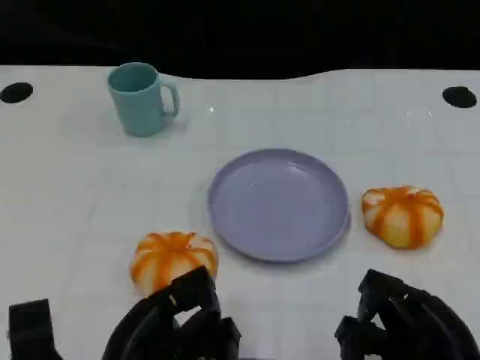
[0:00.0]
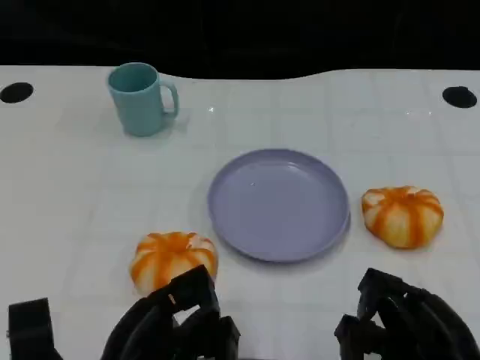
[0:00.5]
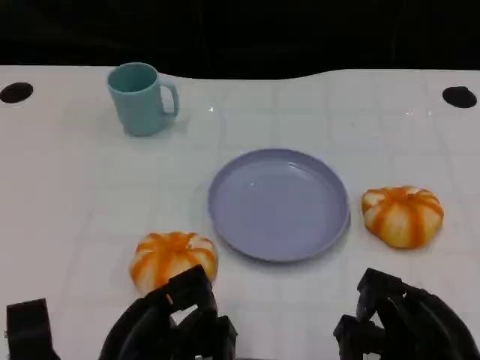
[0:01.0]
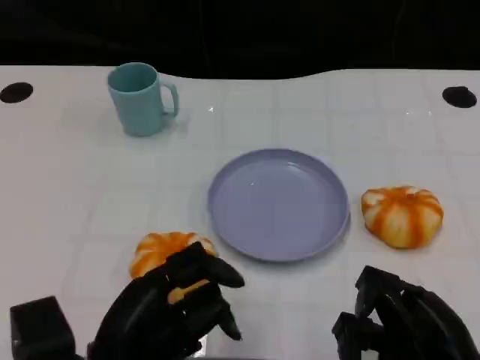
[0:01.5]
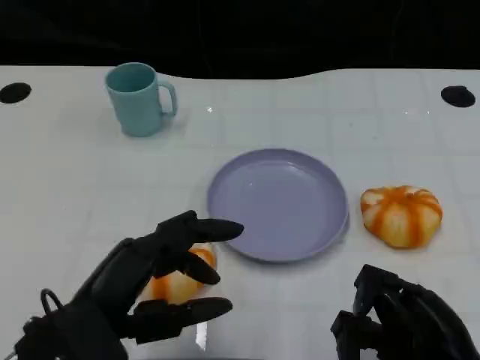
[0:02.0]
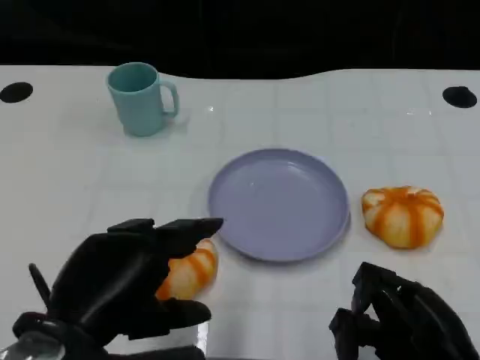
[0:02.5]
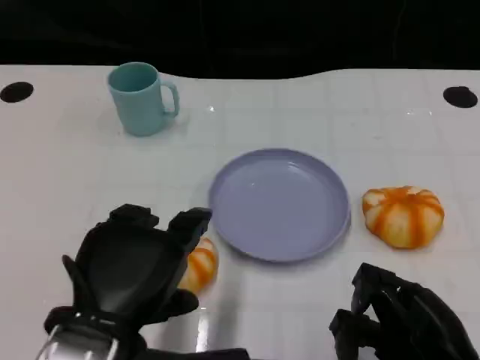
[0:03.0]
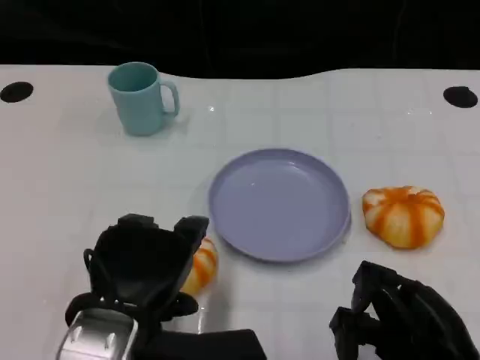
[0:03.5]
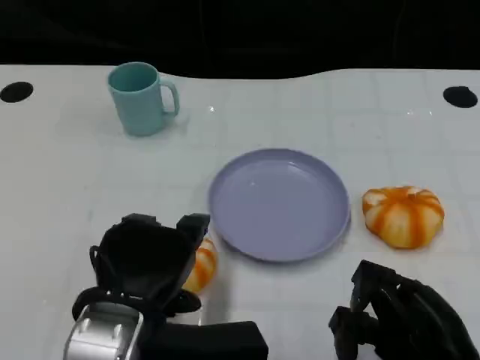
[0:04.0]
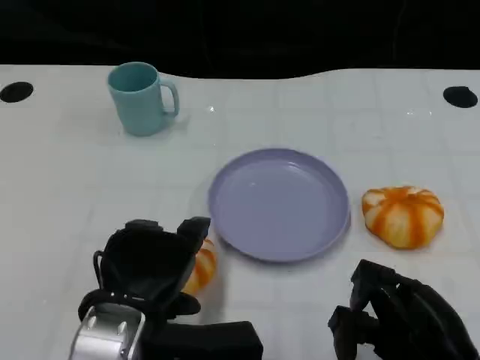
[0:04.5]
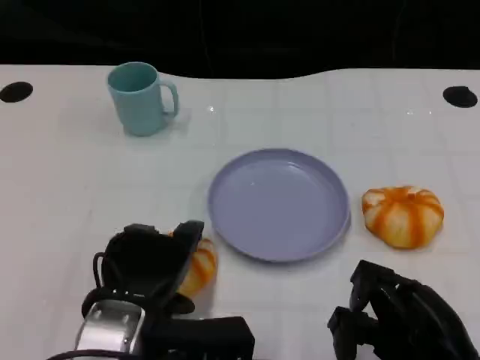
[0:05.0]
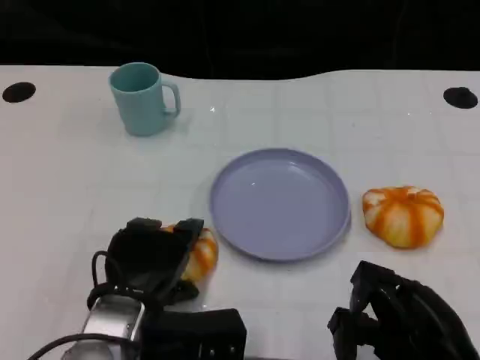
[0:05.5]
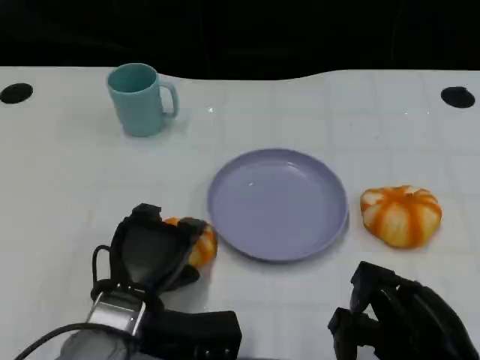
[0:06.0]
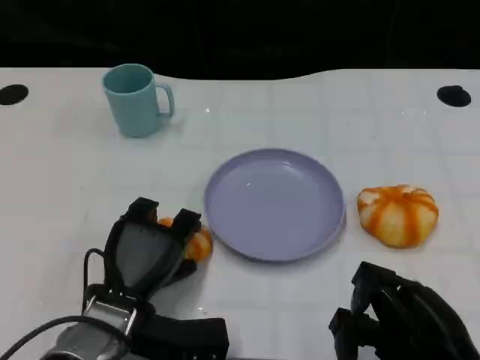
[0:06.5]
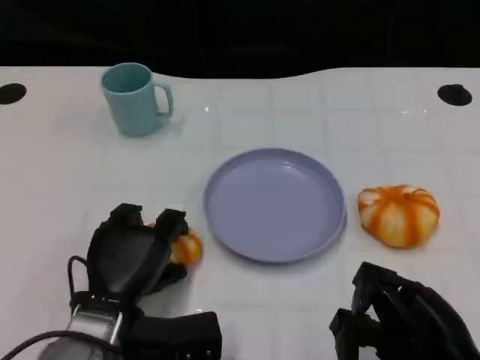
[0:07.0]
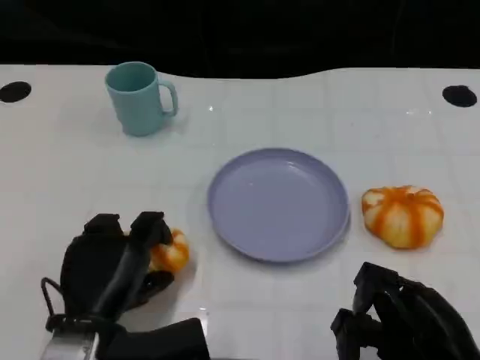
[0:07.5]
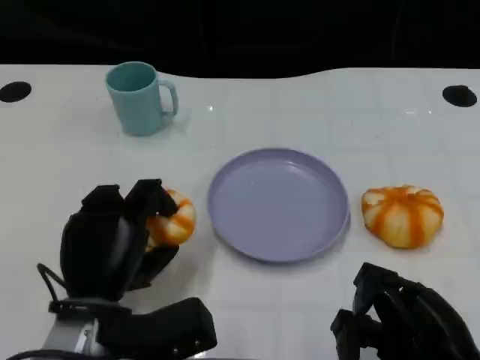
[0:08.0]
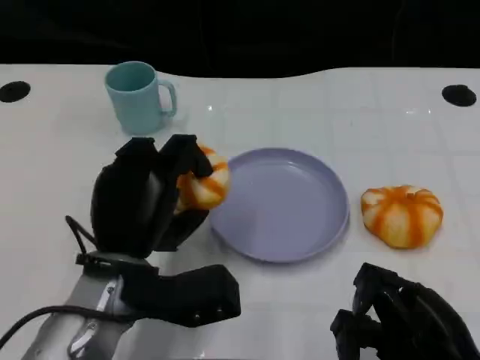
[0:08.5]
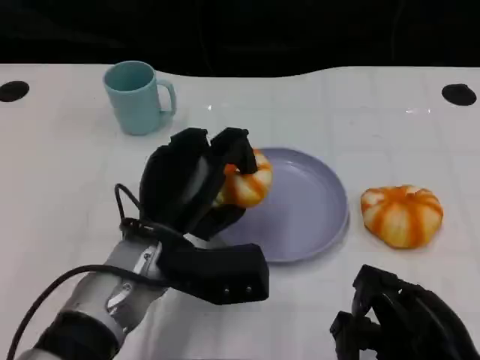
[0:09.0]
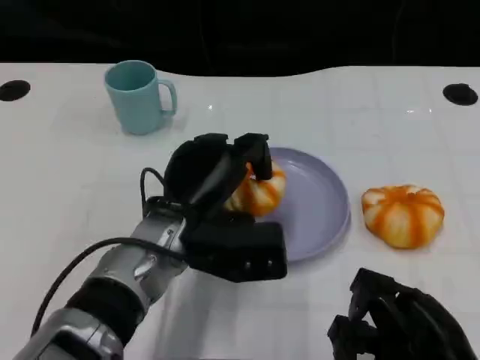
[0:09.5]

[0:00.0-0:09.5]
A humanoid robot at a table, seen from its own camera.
Task of the whole recording: Grasp the bread from the table and place it into the plate.
0:00.0 to 0:02.0: The left hand moves upward, roughly 10 cm.
0:02.0 to 0:04.0: The left hand moves to the right, about 5 cm.
0:04.0 to 0:05.5: The left hand travels downward by some 10 cm.
0:07.5 to 0:09.5: The left hand is displaced to the right, forward and upward by roughly 15 cm.

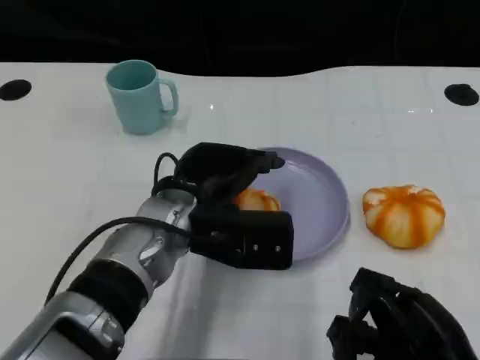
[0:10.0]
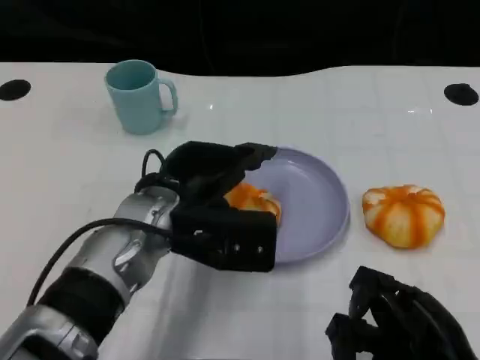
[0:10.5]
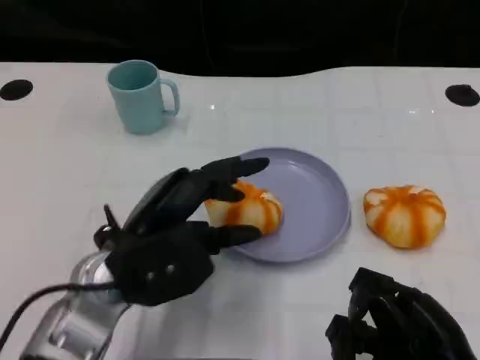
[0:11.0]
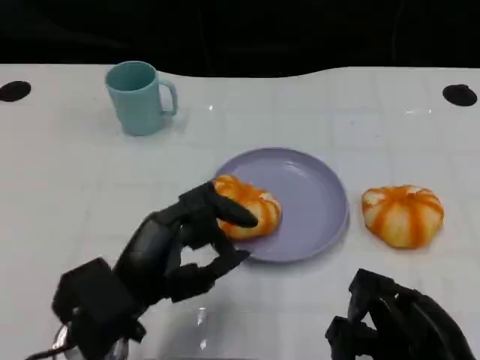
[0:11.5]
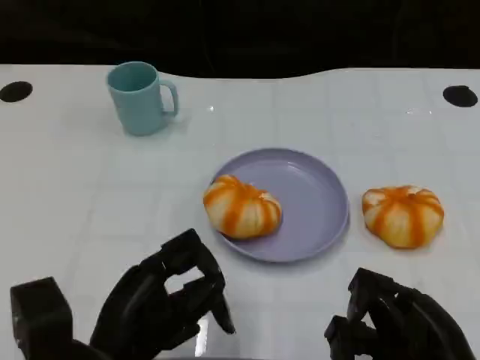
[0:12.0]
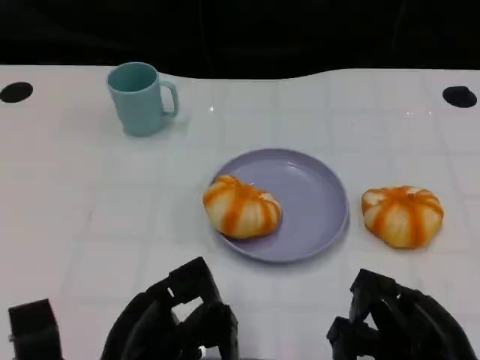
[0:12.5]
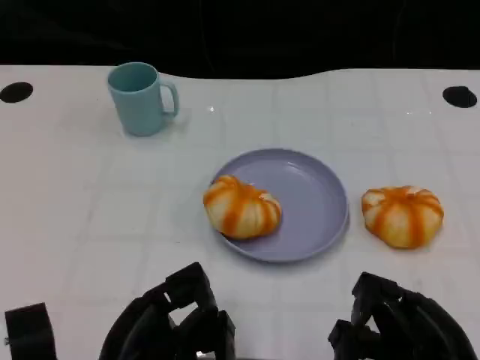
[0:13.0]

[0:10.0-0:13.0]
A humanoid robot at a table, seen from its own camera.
Task of the whole recording: Grasp the bread from the table and place it into the plate.
0:10.0 to 0:11.5: The left hand goes about 15 cm backward and to the left.
0:11.5 to 0:13.0: The left hand is displaced backward by roughly 5 cm.

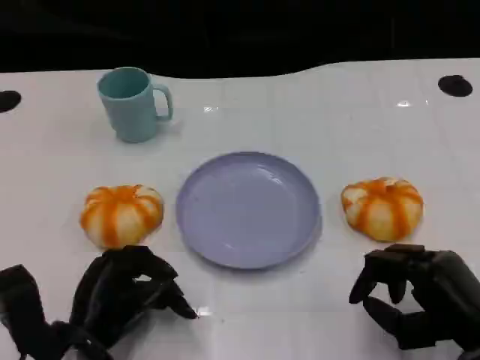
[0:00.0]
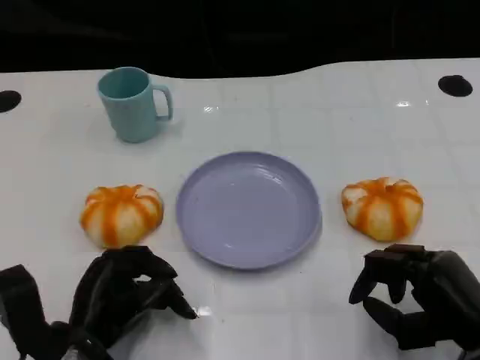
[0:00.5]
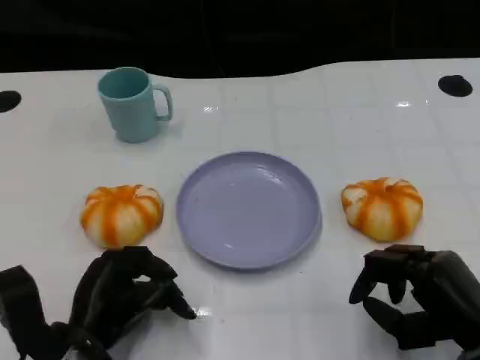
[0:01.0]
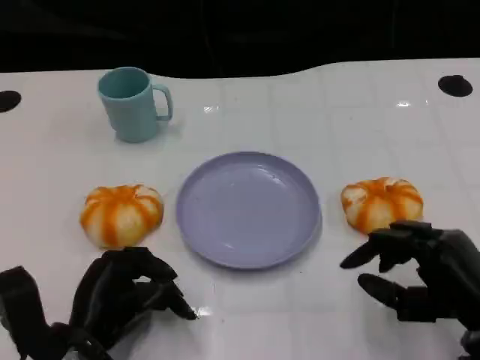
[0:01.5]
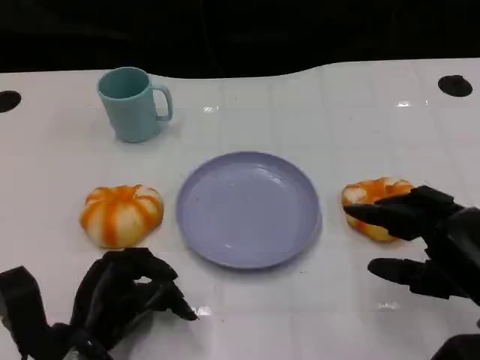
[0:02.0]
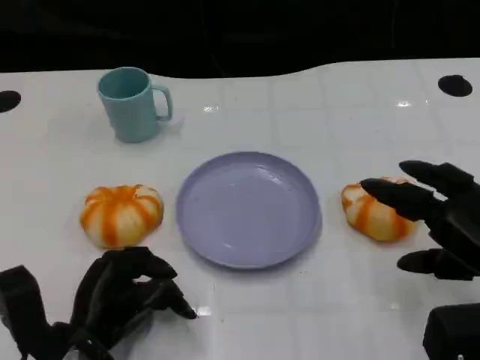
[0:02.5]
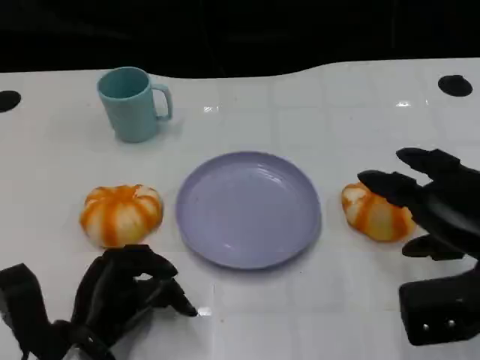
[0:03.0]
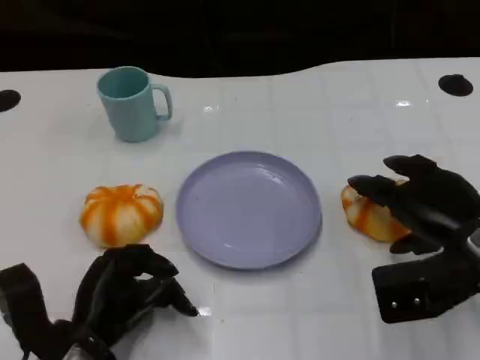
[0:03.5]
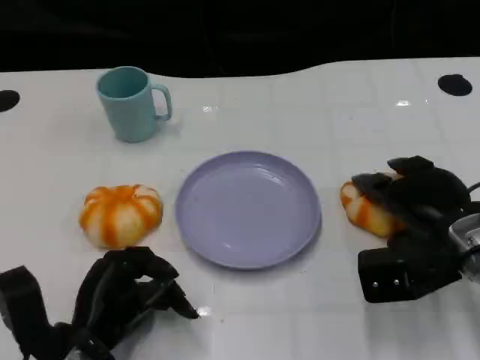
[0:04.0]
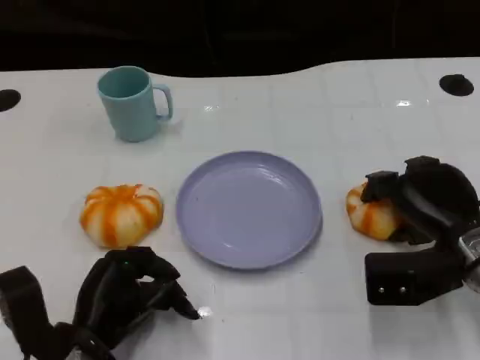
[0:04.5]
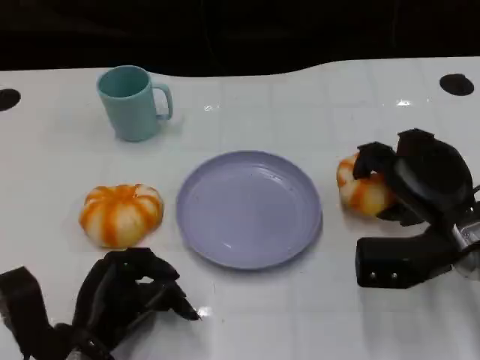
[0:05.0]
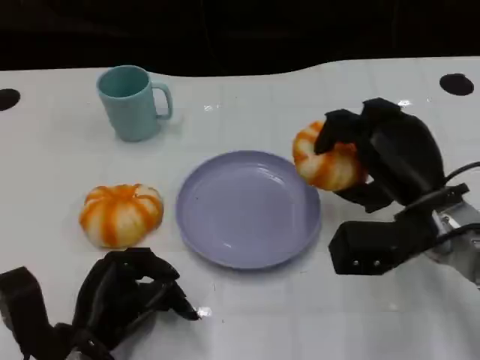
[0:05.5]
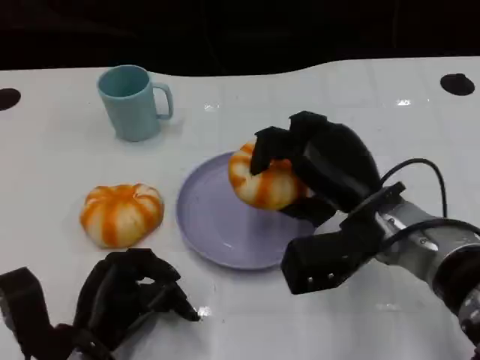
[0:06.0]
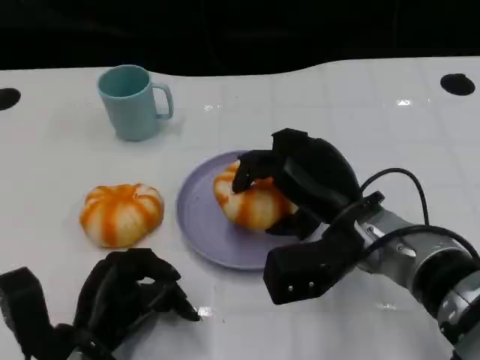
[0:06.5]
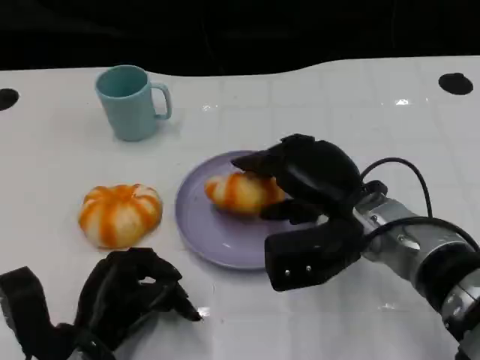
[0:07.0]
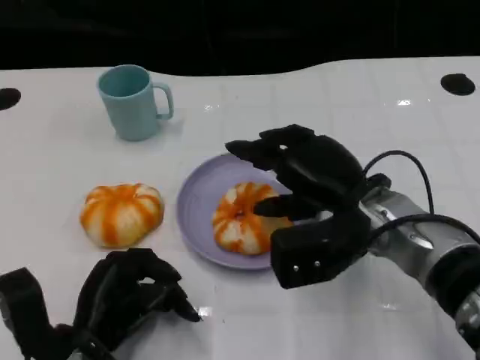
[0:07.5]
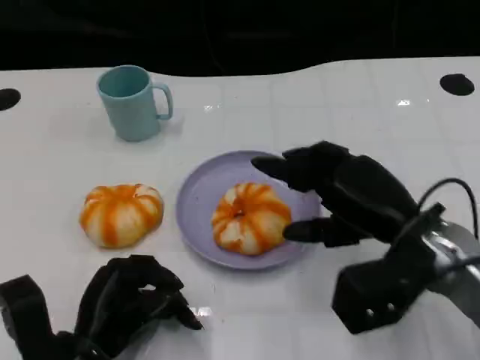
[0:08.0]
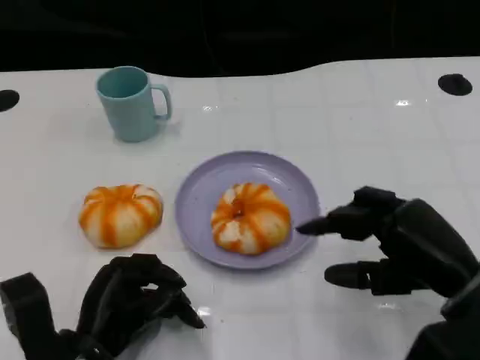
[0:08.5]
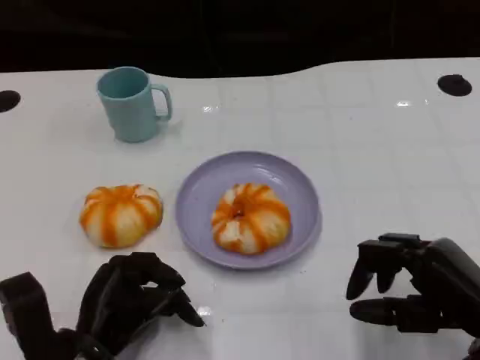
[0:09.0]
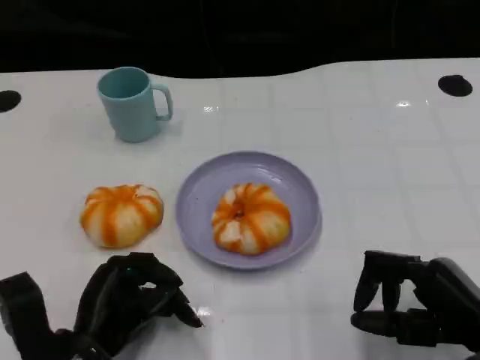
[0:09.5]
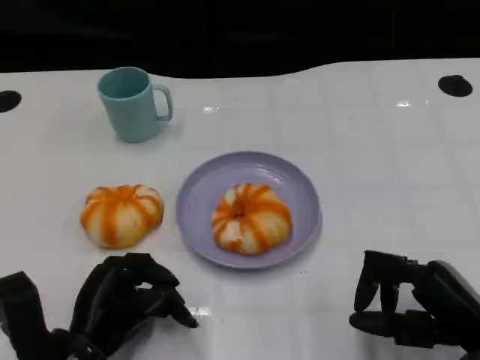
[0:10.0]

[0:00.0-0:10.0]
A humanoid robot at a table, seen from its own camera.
Task of the whole recording: Grasp the bread from the table and place it into the plate.
0:00.0 to 0:02.0: The right hand shifts some 5 cm upward.
0:02.0 to 0:04.0: The right hand heads forward, covering approximately 10 cm.
0:04.0 to 0:06.0: The right hand shifts some 10 cm to the left.
0:06.0 to 0:08.0: The right hand shifts some 5 cm to the right.
0:08.0 to 0:10.0: The right hand moves backward, to the right and downward, approximately 10 cm.

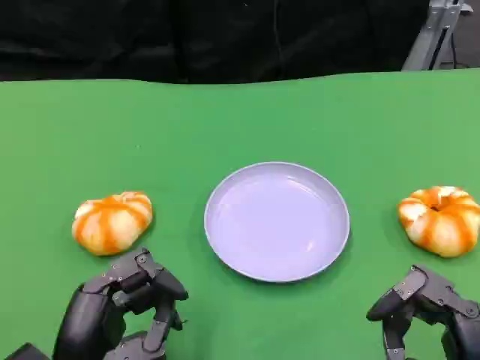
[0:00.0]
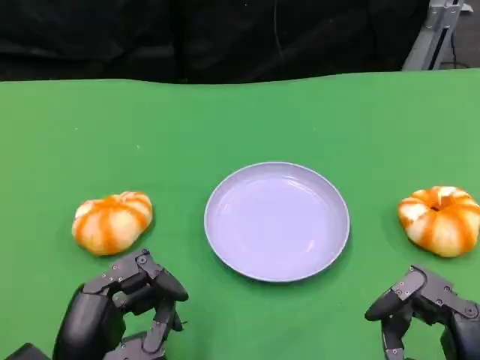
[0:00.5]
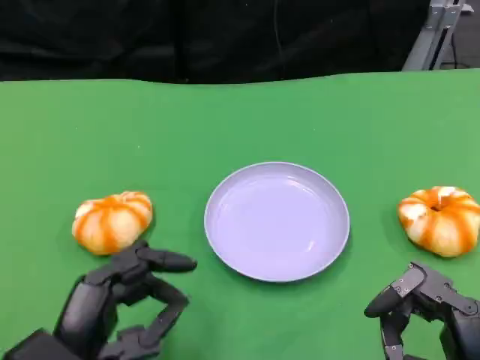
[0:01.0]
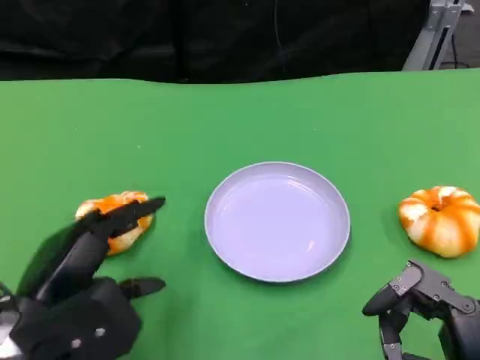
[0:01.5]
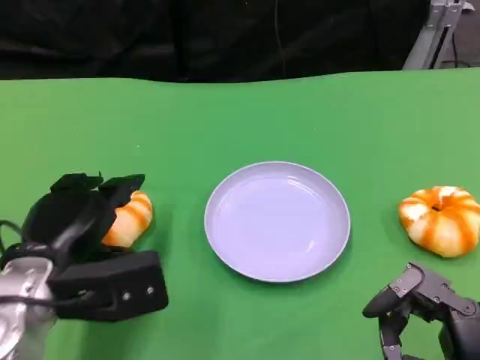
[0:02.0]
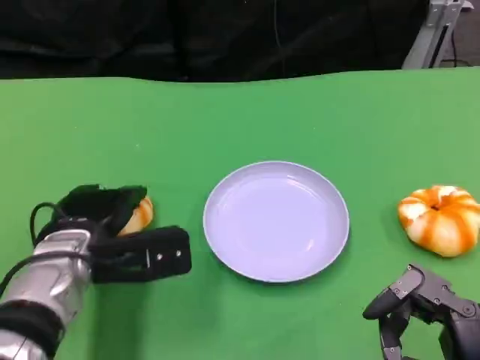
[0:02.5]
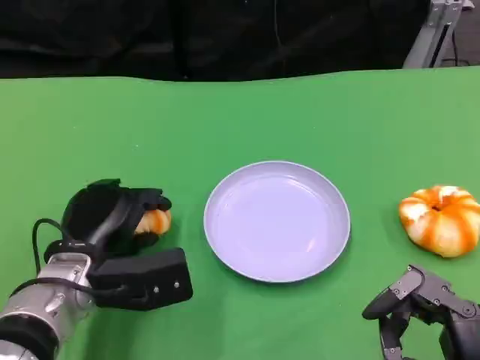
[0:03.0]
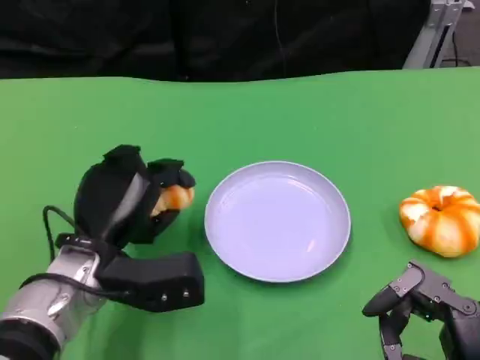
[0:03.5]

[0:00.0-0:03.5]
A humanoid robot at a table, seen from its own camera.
Task of the whole recording: Grasp the bread from the table and place it into the plate.
0:00.0 to 0:02.0: The left hand goes about 10 cm forward.
0:02.0 to 0:03.5: The left hand ends up roughly 5 cm from where it was.
